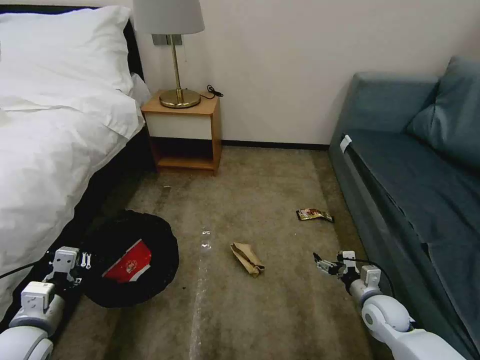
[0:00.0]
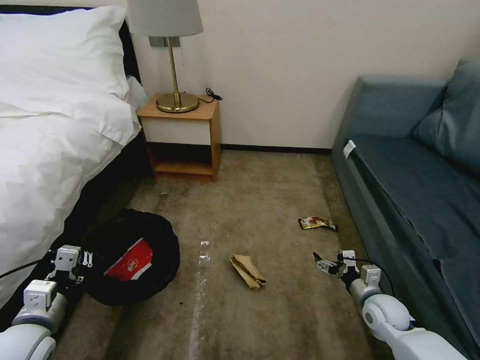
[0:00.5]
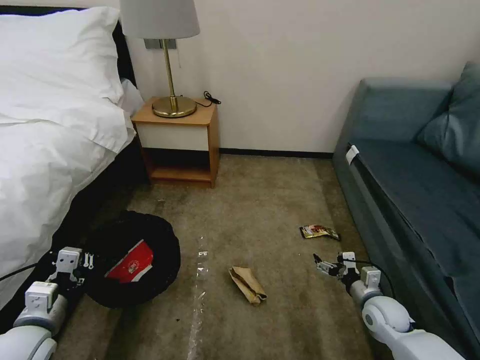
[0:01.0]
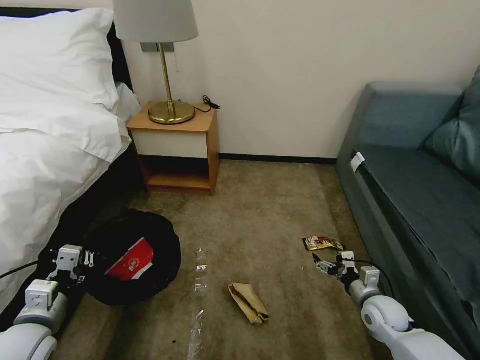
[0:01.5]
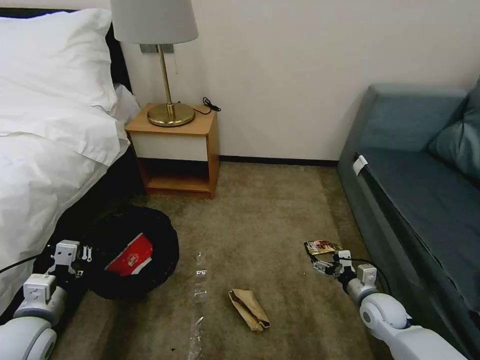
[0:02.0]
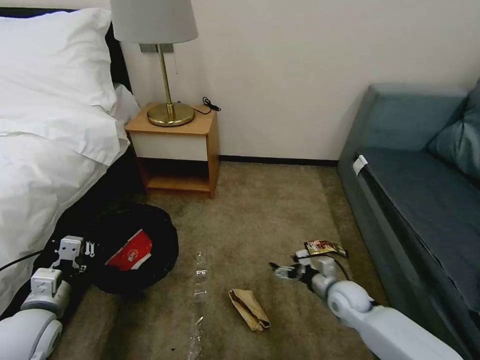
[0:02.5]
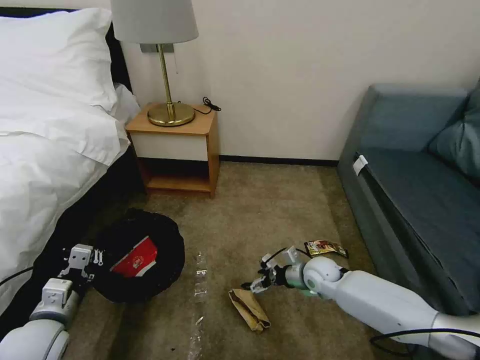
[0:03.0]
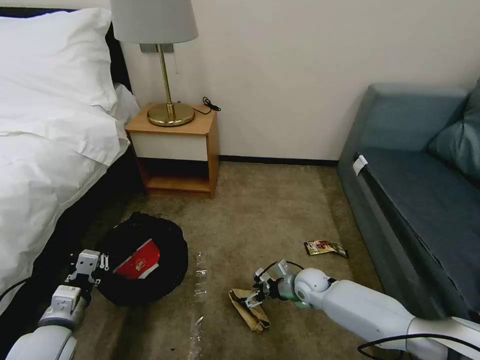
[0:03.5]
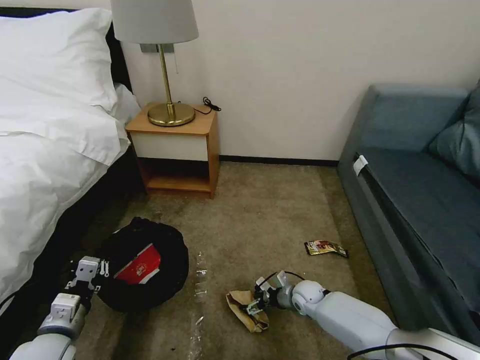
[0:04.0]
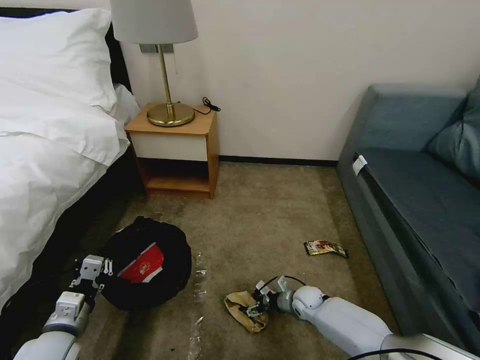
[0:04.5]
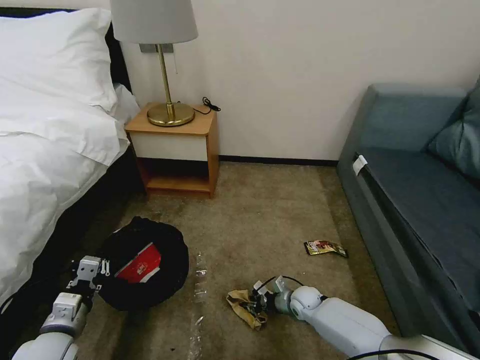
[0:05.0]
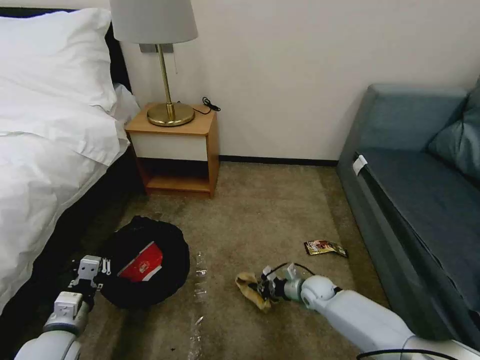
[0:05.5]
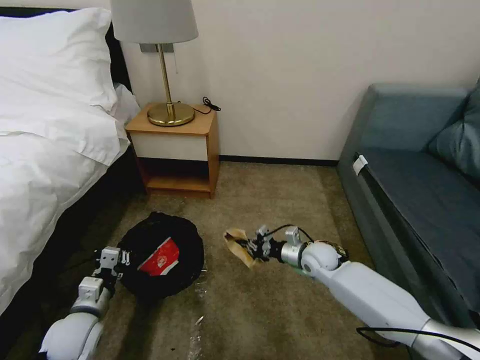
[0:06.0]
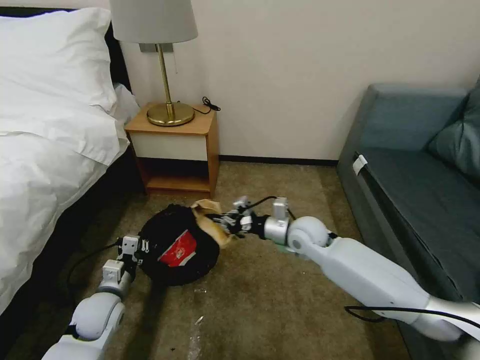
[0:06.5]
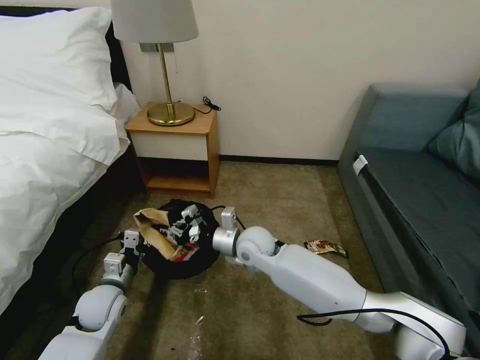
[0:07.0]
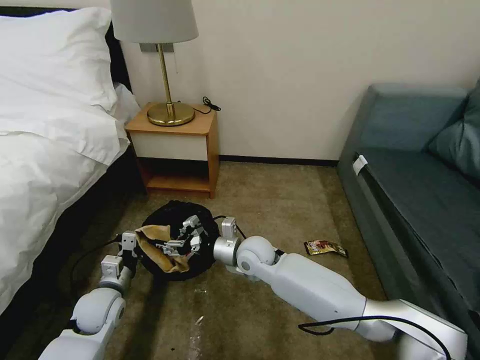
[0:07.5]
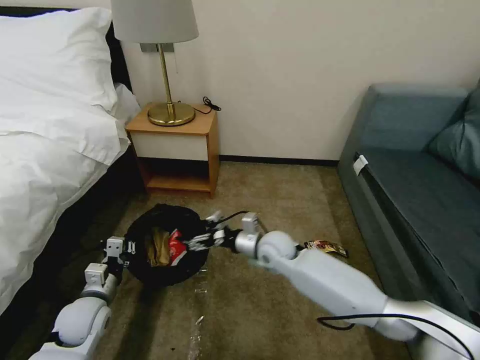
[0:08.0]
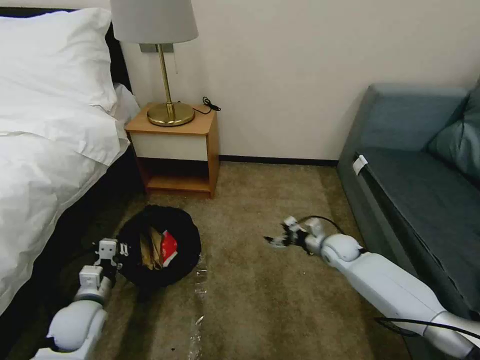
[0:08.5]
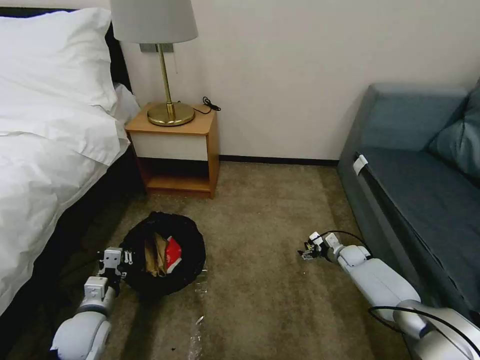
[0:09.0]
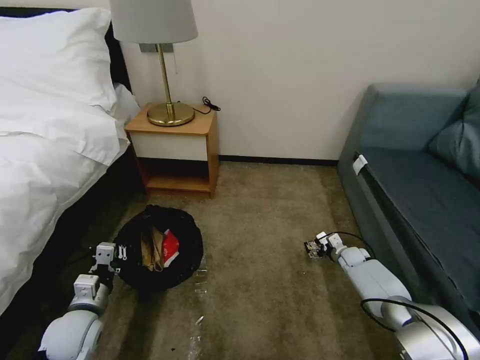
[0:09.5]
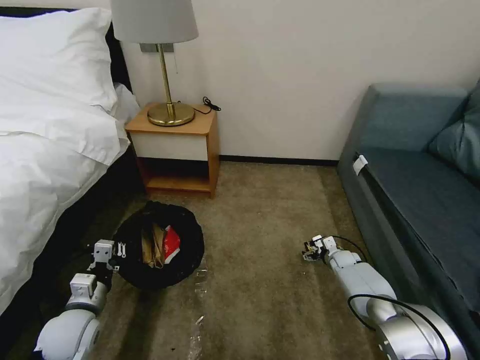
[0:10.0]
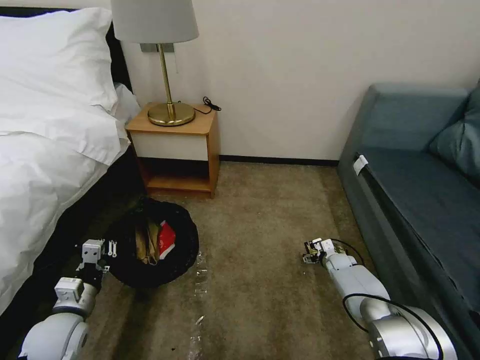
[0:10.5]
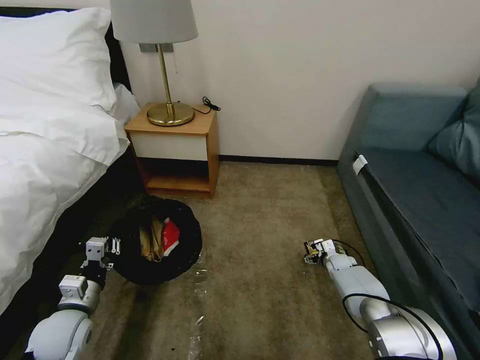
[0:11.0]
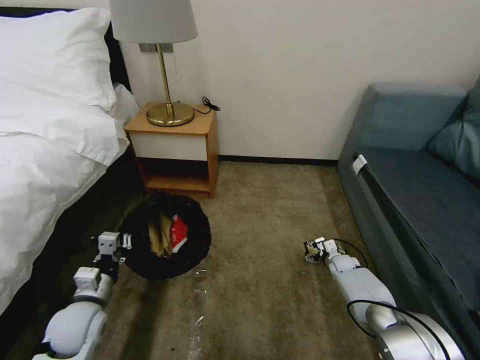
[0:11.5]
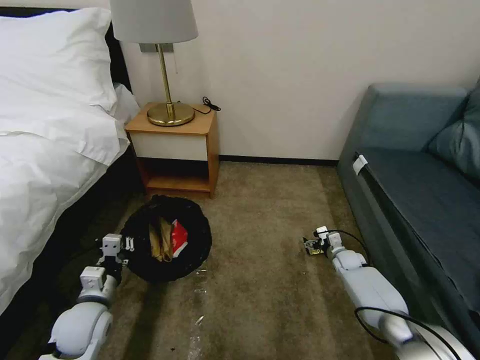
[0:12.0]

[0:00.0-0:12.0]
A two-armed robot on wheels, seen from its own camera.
Task of the whole recording: Pick up the trash bin, then pick up the garbage on the floor and place it into the trash bin.
0:02.0 to 0:04.0: The left gripper ends up approximately 5 cm from where it was. Meanwhile the right gripper moves to the left, downward and forward, approximately 20 cm.
0:04.0 to 0:06.0: The left gripper changes place by some 5 cm. The right gripper heads upward, covering some 15 cm, and closes up.
0:06.0 to 0:08.0: The right gripper shifts roughly 15 cm to the left and upward, and opens its fingers.
0:08.0 to 0:10.0: The right gripper moves to the right and downward, roughly 35 cm.
0:10.0 to 0:12.0: The grippers make only small movements.

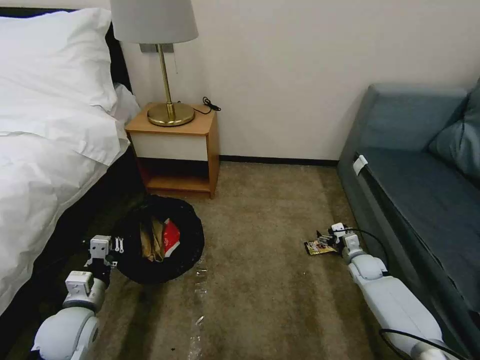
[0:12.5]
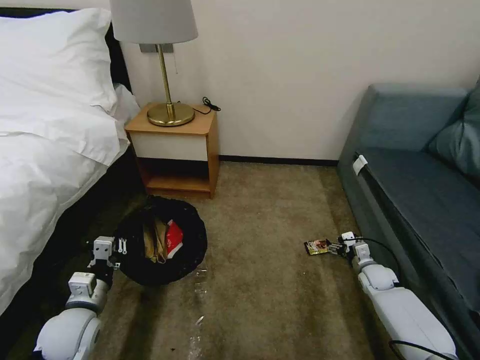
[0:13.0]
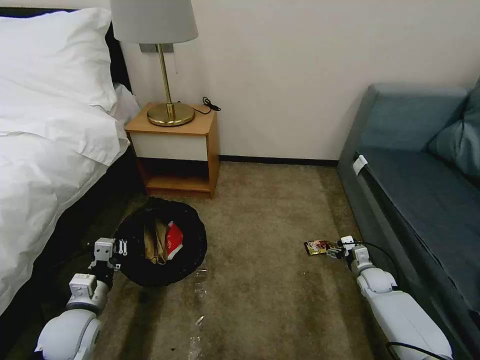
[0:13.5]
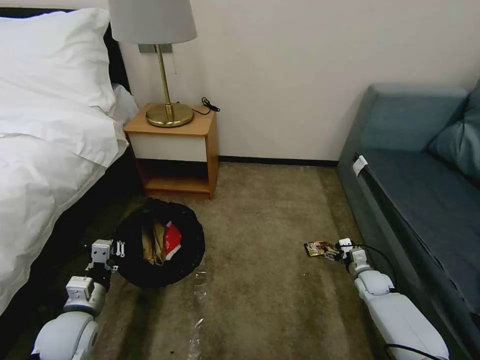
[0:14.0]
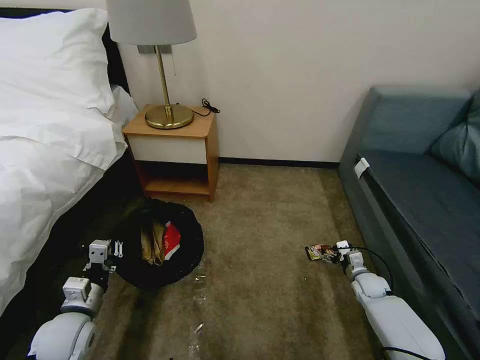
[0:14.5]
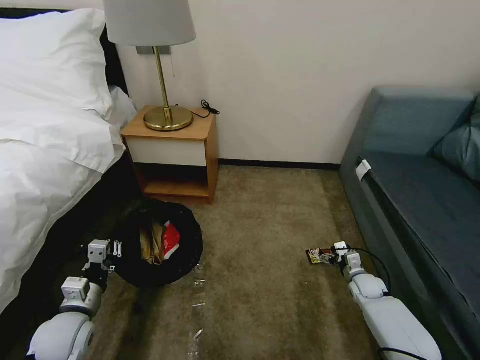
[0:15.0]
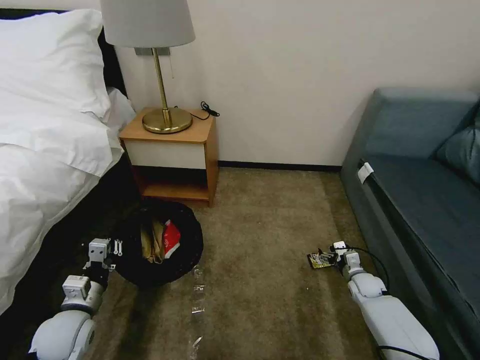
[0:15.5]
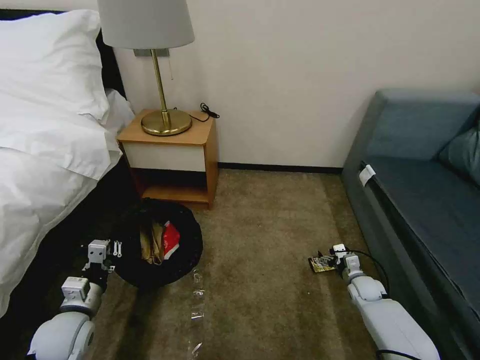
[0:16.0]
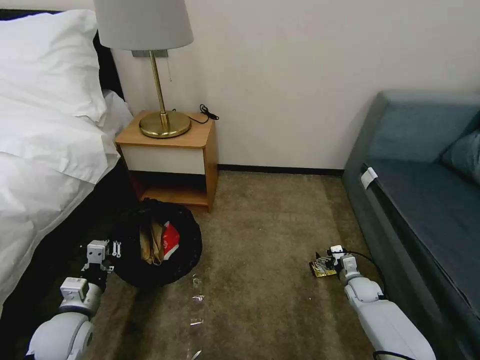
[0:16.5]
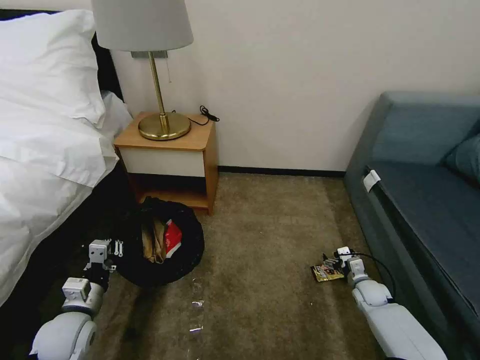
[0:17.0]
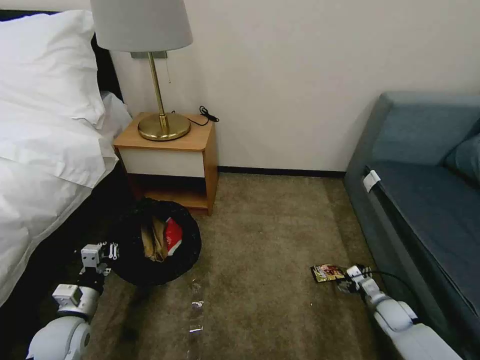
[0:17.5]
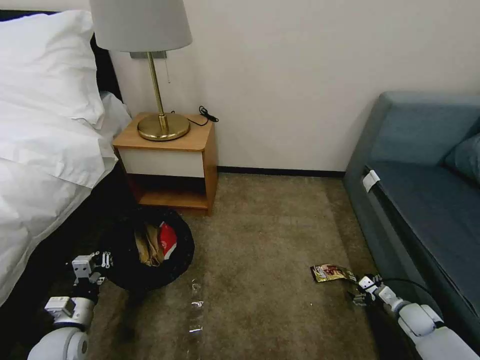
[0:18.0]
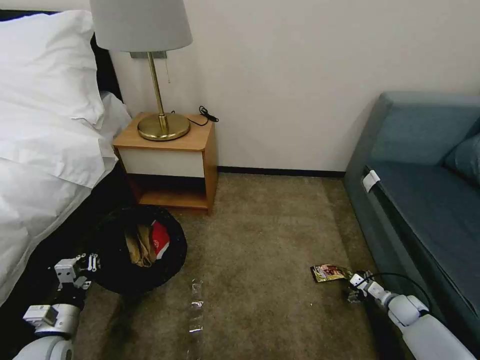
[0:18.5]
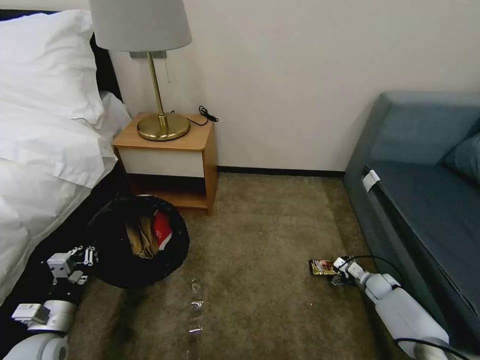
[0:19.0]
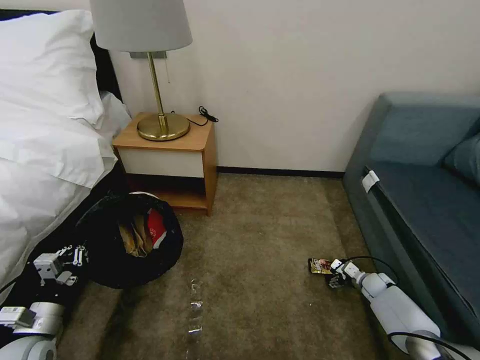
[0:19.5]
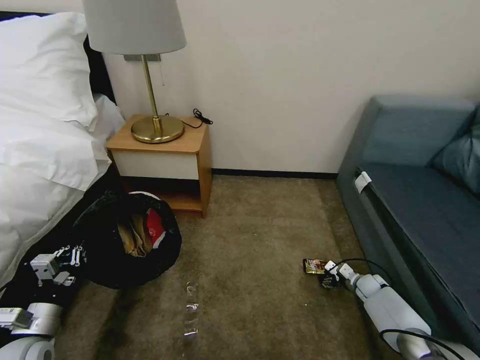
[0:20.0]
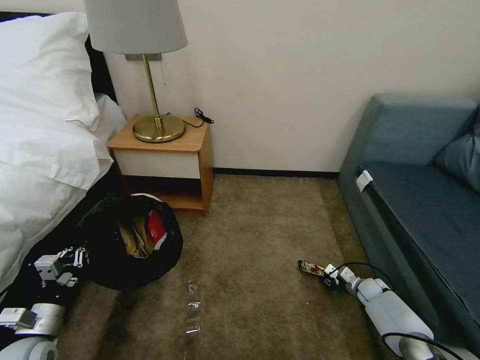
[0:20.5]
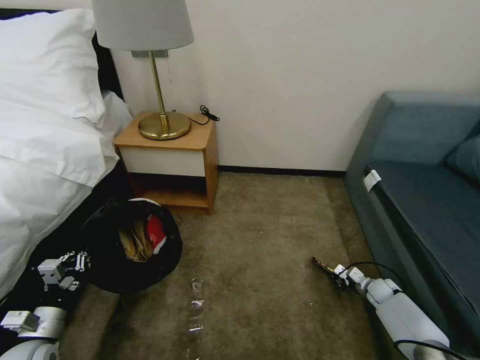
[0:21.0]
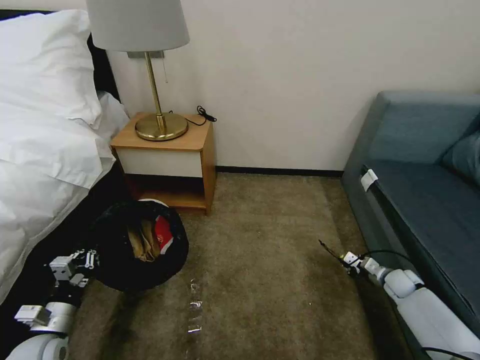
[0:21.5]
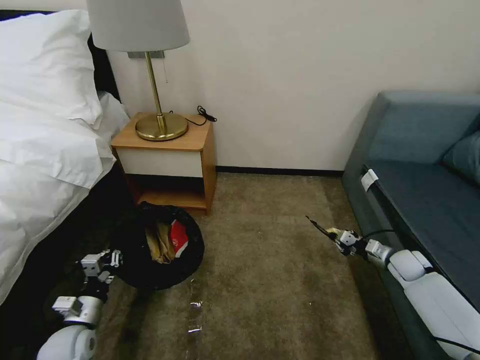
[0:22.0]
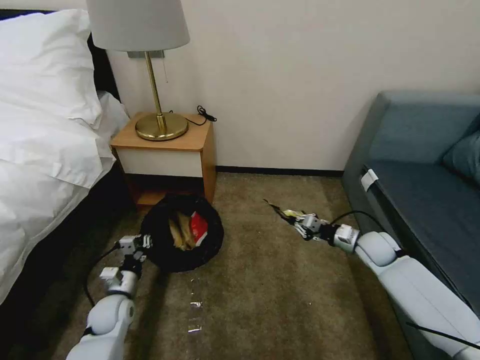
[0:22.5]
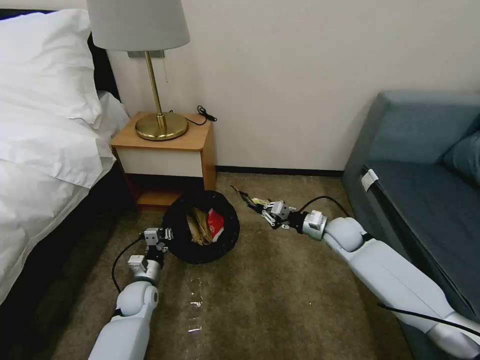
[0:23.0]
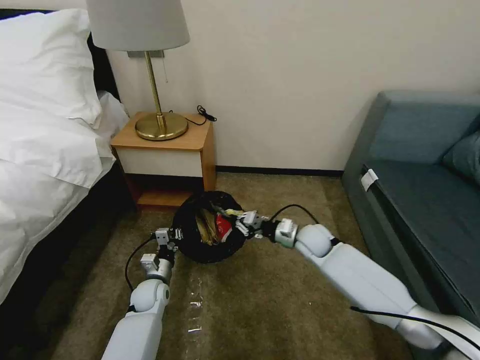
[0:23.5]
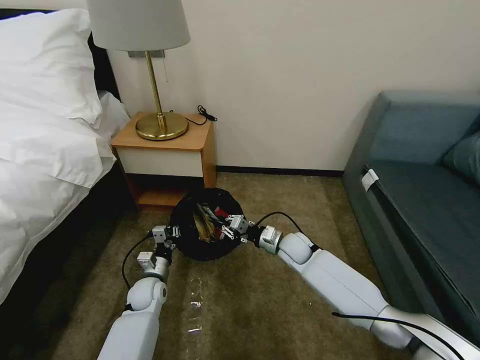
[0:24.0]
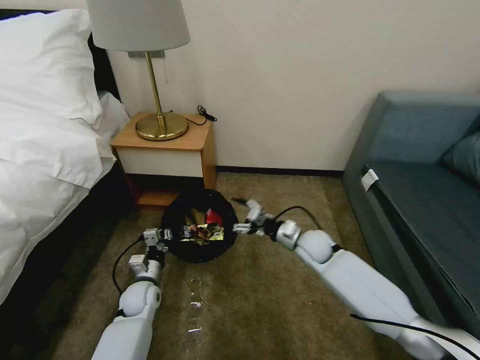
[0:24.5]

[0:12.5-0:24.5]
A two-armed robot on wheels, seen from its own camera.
Task of the whole recording: Pick up the trash bin, then pick up the garbage on the floor and place it into the trash bin.
0:12.5 to 0:14.5: The right gripper changes place by approximately 5 cm.
0:14.5 to 0:16.5: There are only small adjustments of the grippers.
0:16.5 to 0:18.5: The left gripper changes place by roughly 5 cm. The right gripper travels to the right and backward by roughly 10 cm.
0:18.5 to 0:20.5: The right gripper moves forward and to the left, about 10 cm, and closes up.
0:20.5 to 0:22.5: The left gripper is displaced forward, to the right and downward by some 15 cm; the right gripper shifts some 20 cm upward.
0:22.5 to 0:24.5: The right gripper heads to the left, covering some 20 cm, and opens; the left gripper heads to the right and forward, covering about 10 cm.

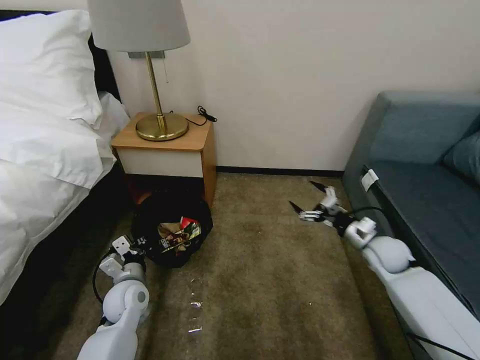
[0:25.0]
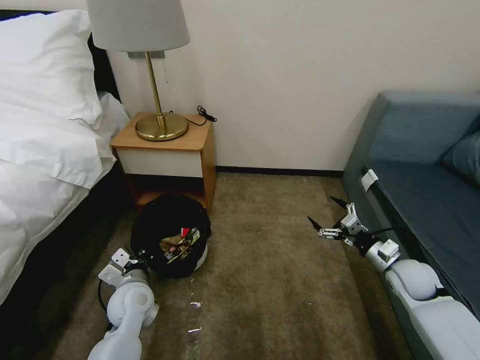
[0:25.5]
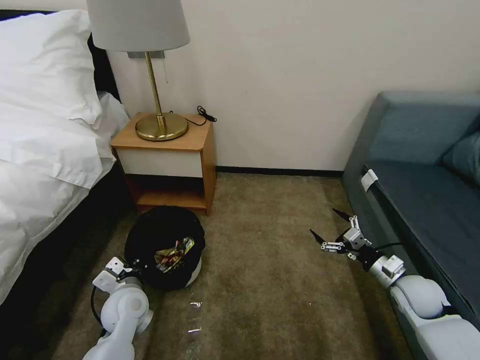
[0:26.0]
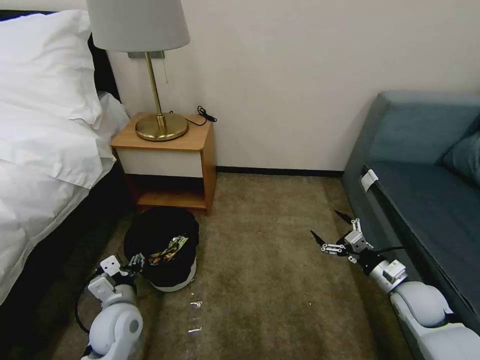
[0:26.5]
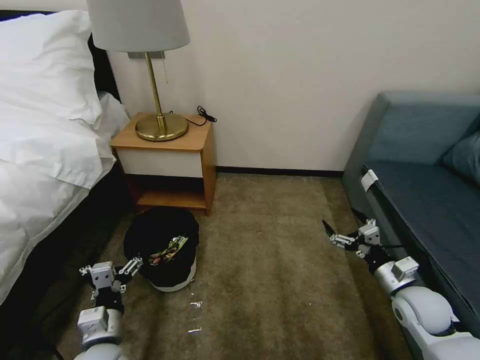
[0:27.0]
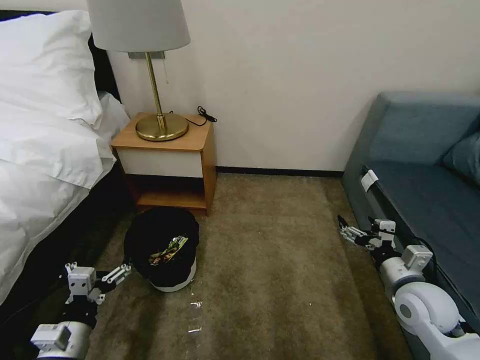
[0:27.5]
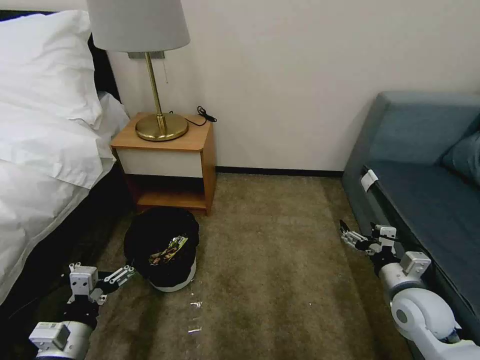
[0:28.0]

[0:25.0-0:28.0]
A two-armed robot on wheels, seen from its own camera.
Task of the whole recording: Pick up the trash bin, then pick up the garbage on the floor and place it into the trash bin.
0:25.0 to 0:26.5: The right gripper is displaced backward by roughly 10 cm. The left gripper shifts about 5 cm backward, and opens up.
0:26.5 to 0:28.0: The left gripper heads backward, to the left and upward, covering approximately 15 cm, and opens its fingers. The right gripper travels upward by about 5 cm.
